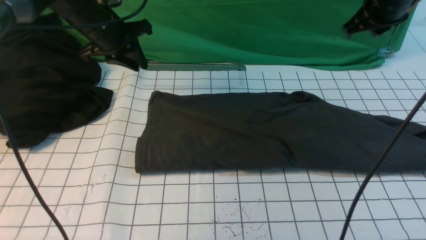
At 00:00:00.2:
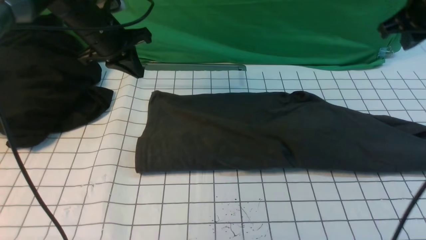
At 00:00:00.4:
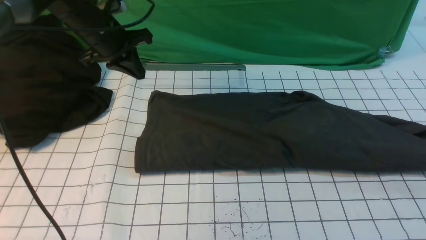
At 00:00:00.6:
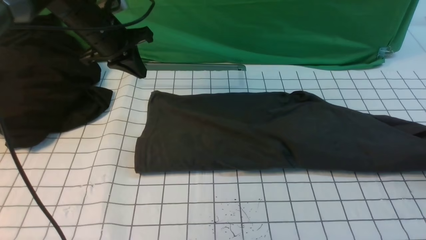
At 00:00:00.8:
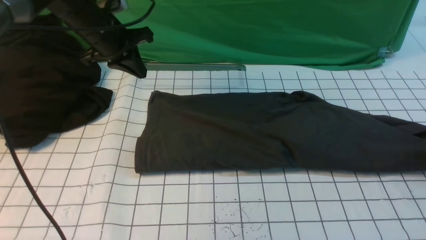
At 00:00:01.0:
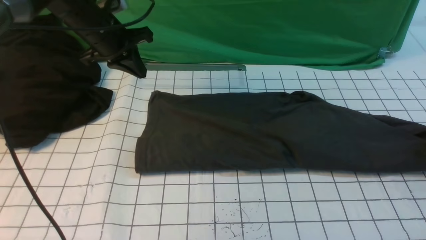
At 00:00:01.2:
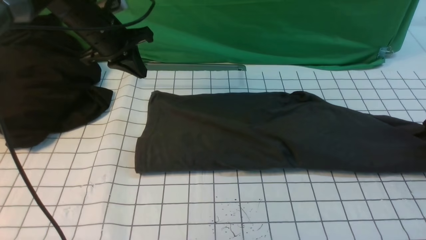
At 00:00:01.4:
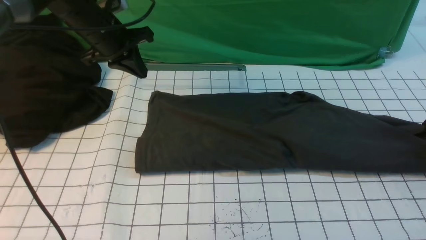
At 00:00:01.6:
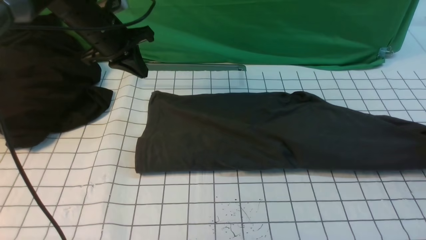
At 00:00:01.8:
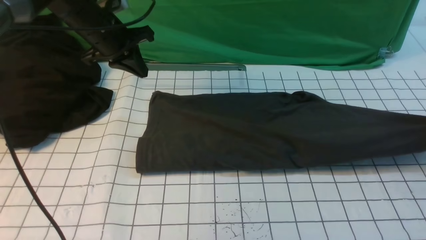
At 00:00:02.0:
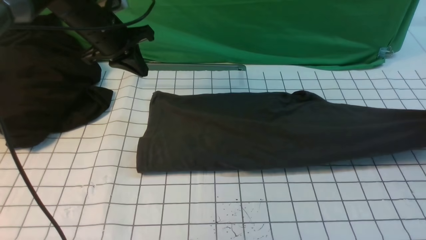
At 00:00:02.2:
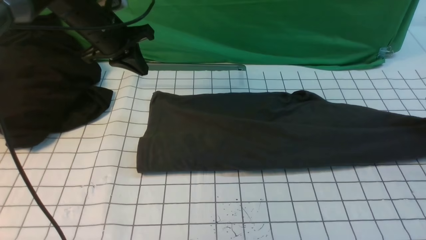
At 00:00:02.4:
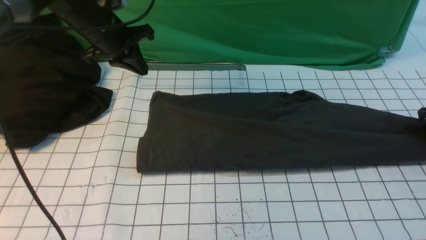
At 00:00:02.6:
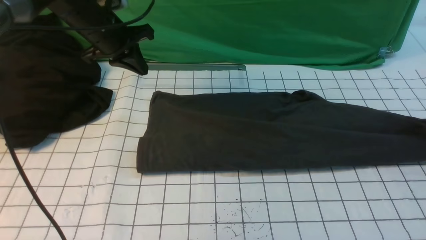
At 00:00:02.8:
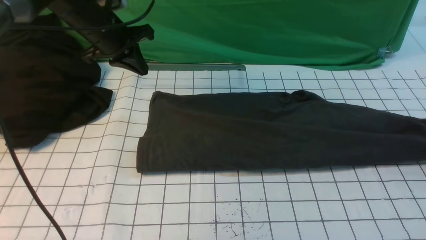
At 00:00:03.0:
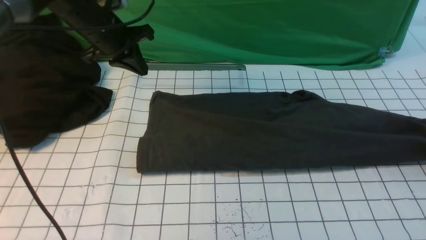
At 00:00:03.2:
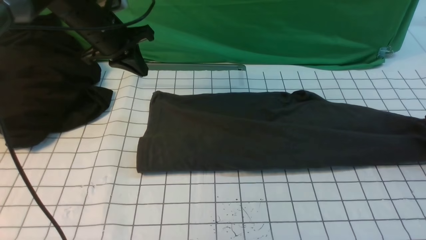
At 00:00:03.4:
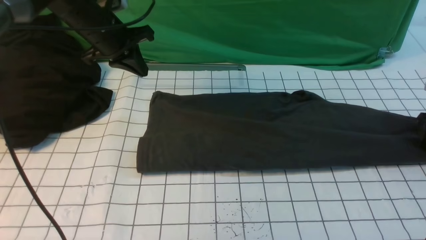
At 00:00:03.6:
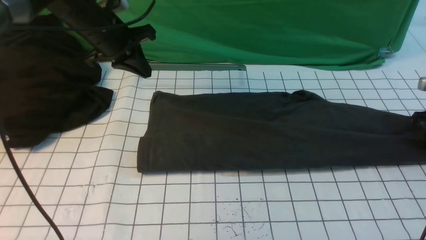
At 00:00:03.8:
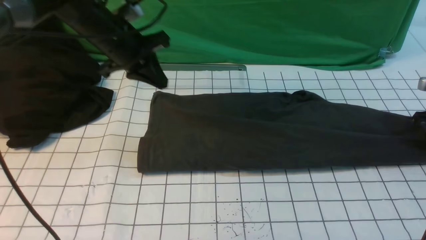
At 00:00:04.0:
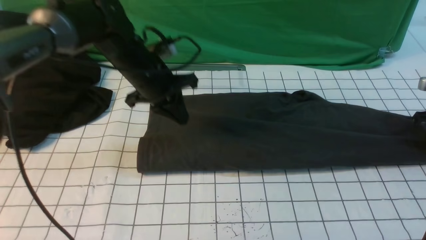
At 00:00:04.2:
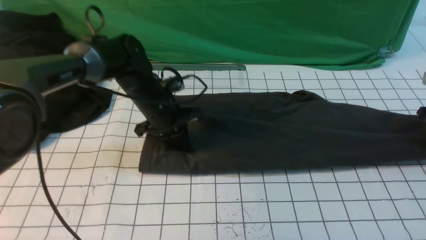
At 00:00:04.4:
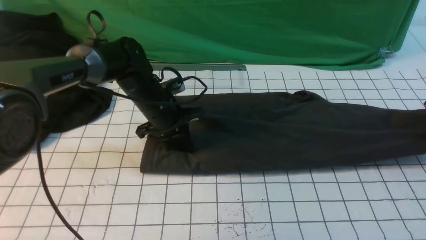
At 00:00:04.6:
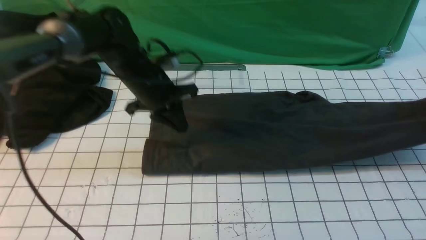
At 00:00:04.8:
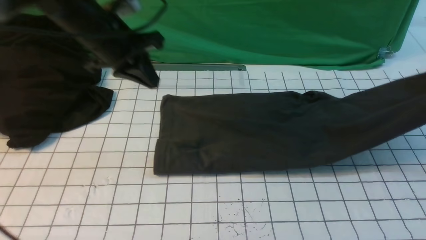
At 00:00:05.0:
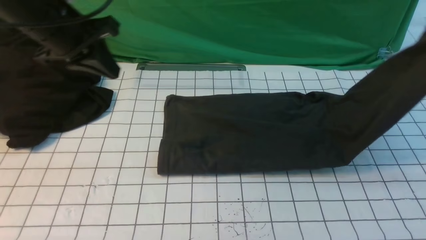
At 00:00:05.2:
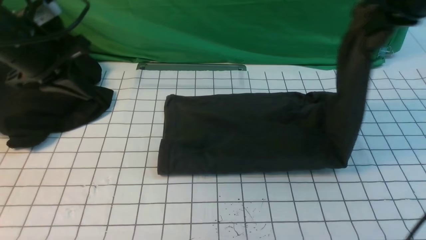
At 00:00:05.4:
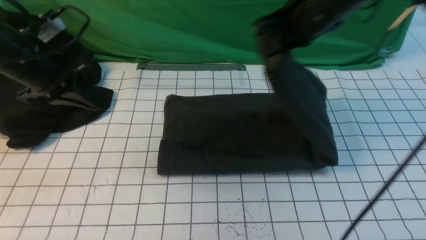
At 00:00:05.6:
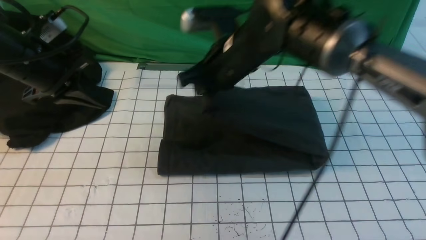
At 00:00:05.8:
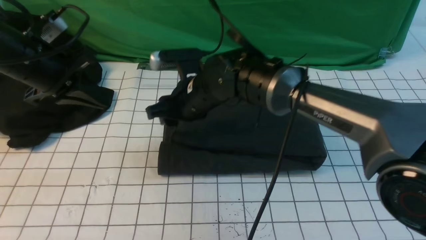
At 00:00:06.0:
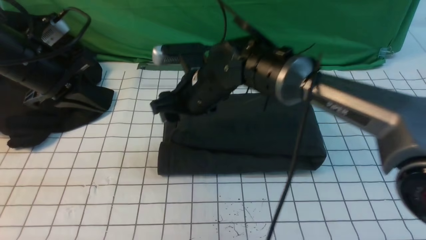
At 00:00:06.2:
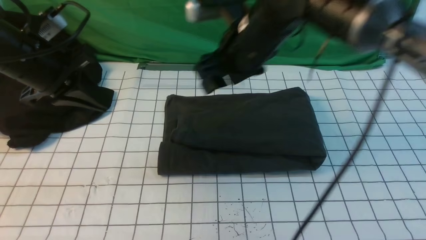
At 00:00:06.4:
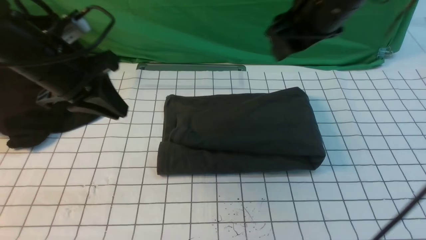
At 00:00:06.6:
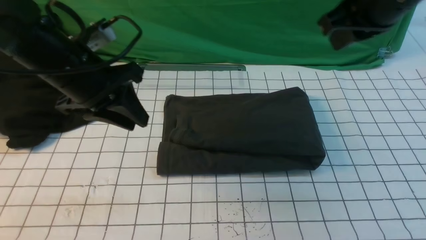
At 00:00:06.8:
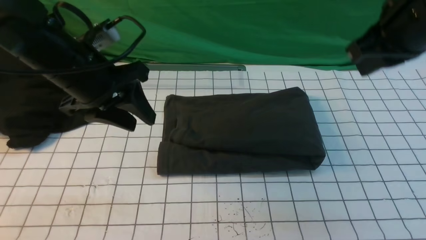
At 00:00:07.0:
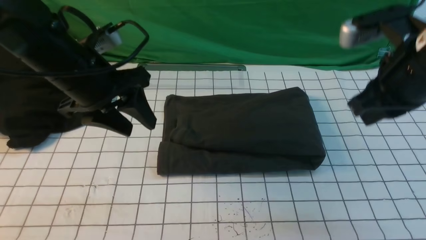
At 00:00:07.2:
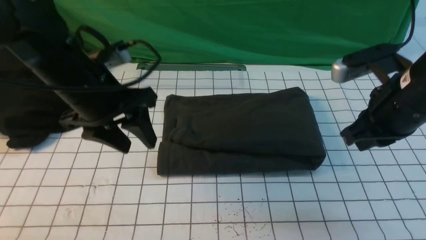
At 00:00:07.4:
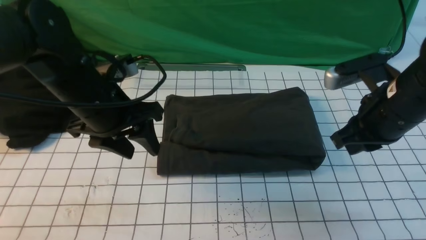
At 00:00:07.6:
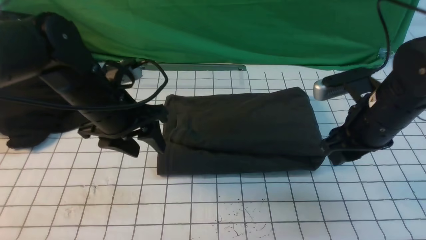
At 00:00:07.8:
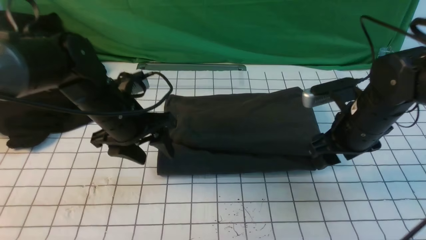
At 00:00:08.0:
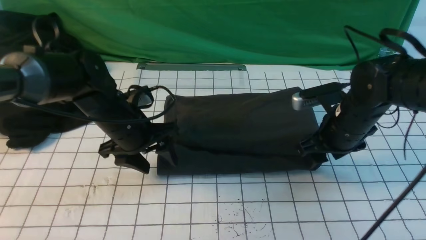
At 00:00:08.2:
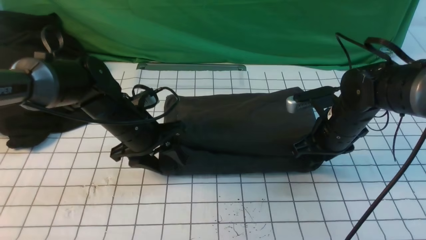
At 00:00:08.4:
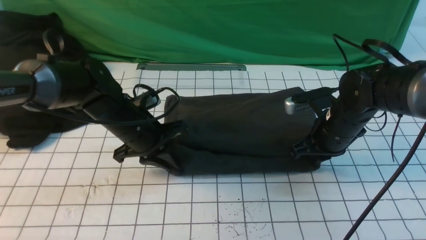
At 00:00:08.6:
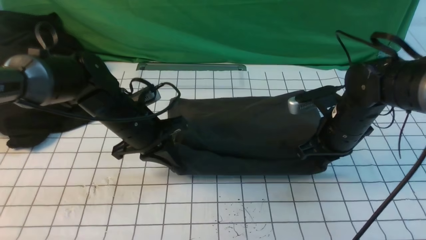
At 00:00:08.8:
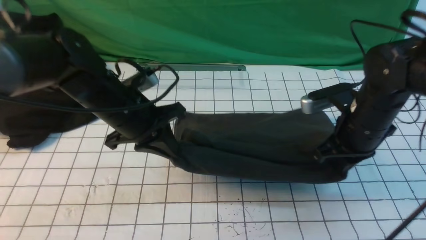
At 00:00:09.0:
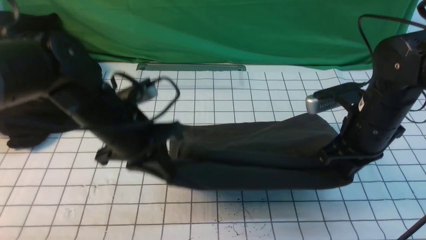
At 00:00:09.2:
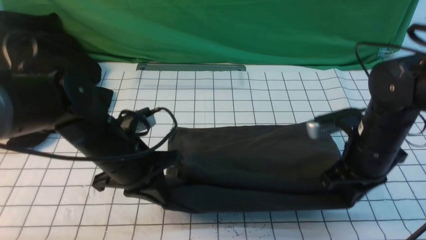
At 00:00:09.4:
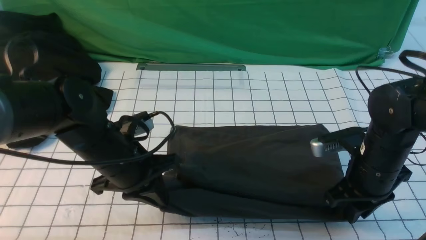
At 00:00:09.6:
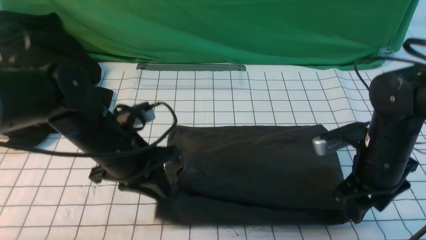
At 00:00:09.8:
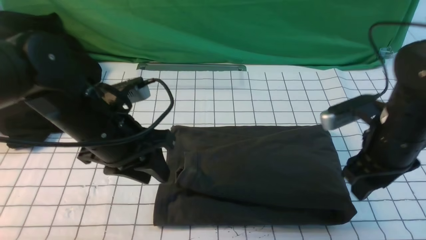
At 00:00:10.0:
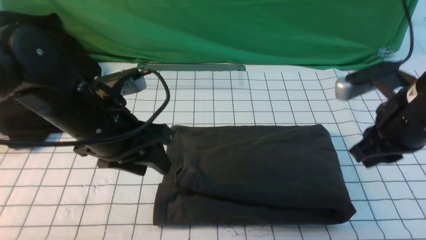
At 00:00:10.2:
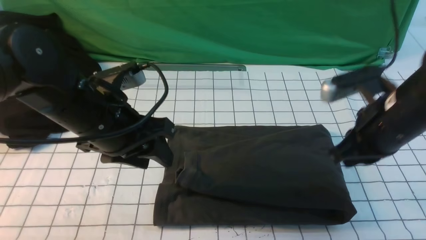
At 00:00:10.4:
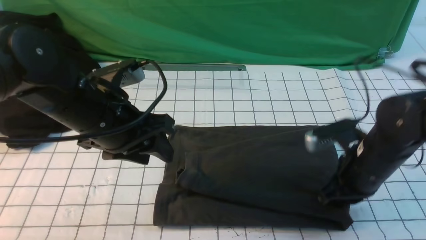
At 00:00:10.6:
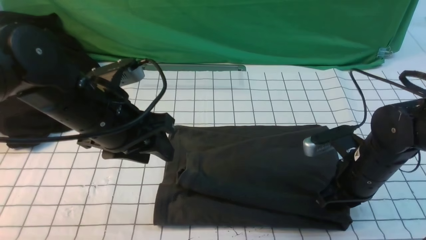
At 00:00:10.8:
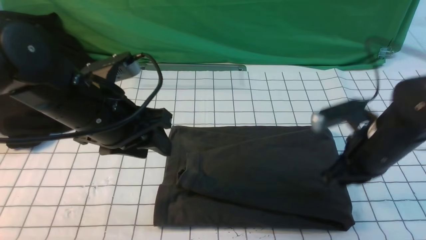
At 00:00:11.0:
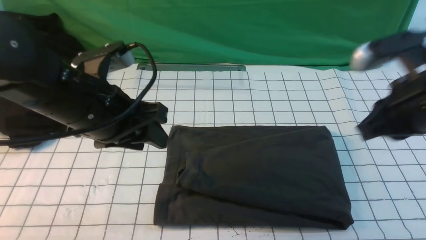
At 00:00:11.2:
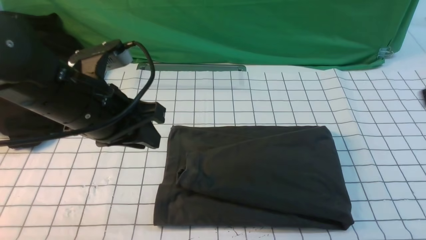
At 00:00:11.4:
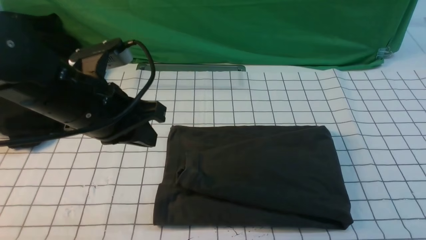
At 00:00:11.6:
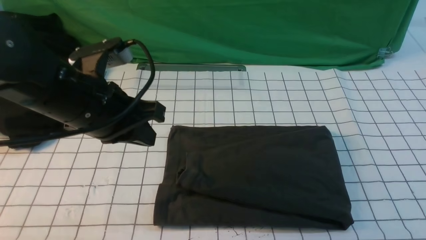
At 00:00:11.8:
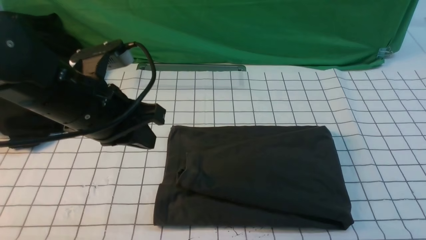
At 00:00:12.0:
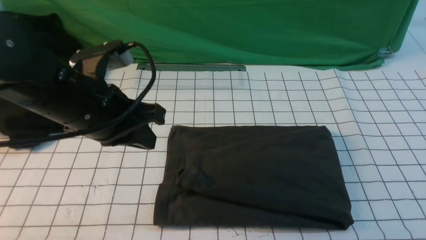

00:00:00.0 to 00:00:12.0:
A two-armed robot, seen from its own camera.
Step, 00:00:00.0 to 00:00:04.4: use the right arm to clamp the right edge of the fabric.
Step, 00:00:04.8 to 00:00:06.0: use the right arm to drag the right edge of the fabric to the left and folds it over the left edge.
00:00:00.0 to 00:00:01.6: The right gripper goes roughly 25 cm to the right and downward, and opens, then closes again.
00:00:01.6 to 00:00:03.0: The right gripper opens.
00:00:03.0 to 00:00:04.4: The right gripper closes its fingers; the left gripper is displaced downward, to the right and backward by approximately 15 cm.
00:00:04.4 to 00:00:06.0: The left gripper shifts some 20 cm to the left, upward and backward. Meanwhile the right gripper travels to the left by some 50 cm, and opens its fingers.
00:00:06.0 to 00:00:07.6: The right gripper is displaced to the right by some 20 cm, and closes, then reopens; the left gripper shifts approximately 10 cm to the right and downward, and opens its fingers.
00:00:07.6 to 00:00:09.0: The left gripper closes; the right gripper closes up.
00:00:09.0 to 00:00:10.4: The right gripper opens, then closes again. Meanwhile the left gripper moves upward, some 5 cm, and opens.
00:00:10.4 to 00:00:12.0: The right gripper travels backward and upward by about 25 cm. The left gripper closes up.

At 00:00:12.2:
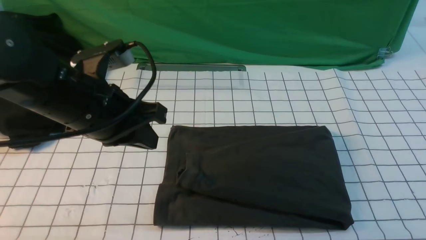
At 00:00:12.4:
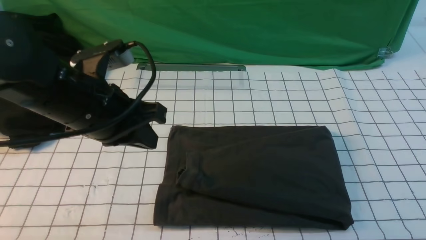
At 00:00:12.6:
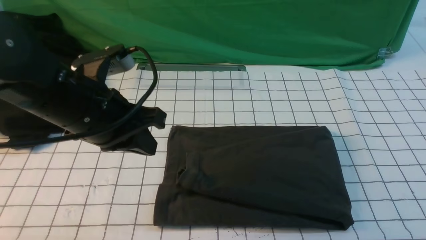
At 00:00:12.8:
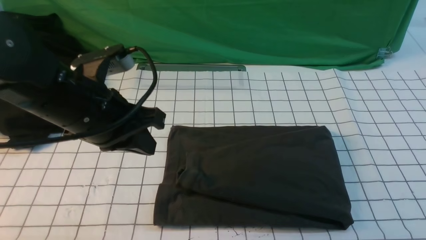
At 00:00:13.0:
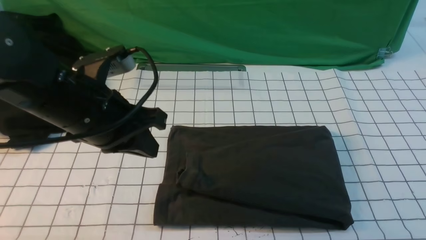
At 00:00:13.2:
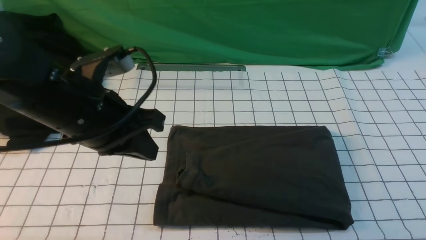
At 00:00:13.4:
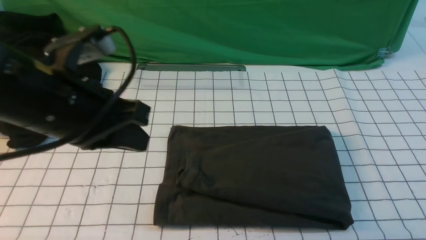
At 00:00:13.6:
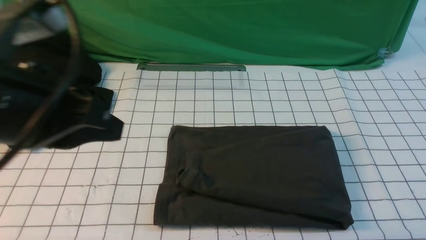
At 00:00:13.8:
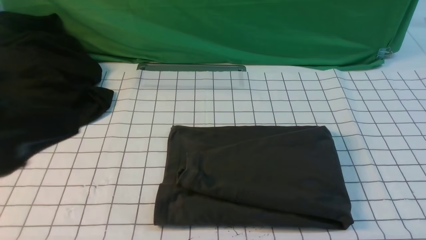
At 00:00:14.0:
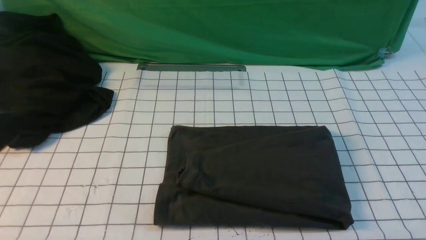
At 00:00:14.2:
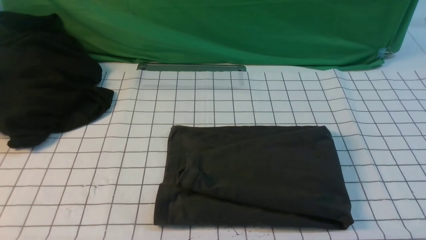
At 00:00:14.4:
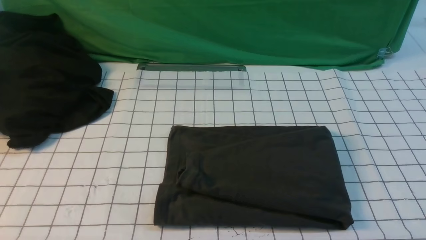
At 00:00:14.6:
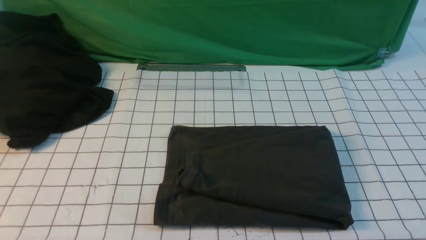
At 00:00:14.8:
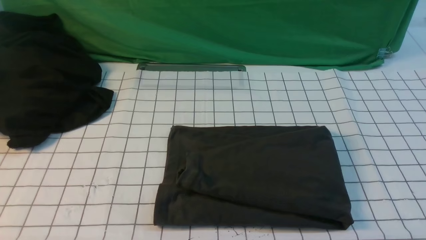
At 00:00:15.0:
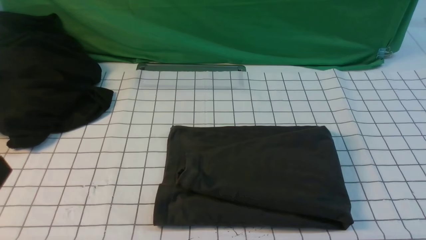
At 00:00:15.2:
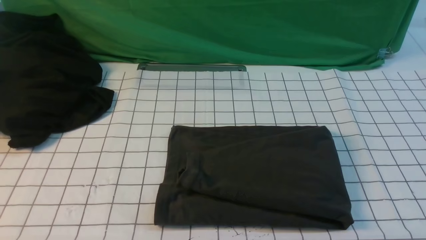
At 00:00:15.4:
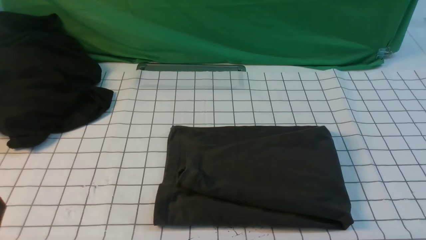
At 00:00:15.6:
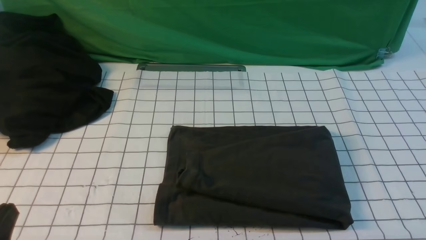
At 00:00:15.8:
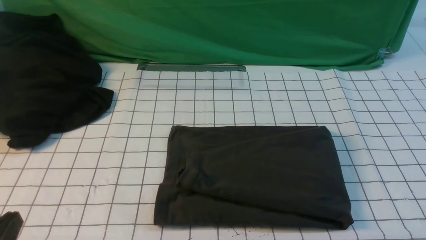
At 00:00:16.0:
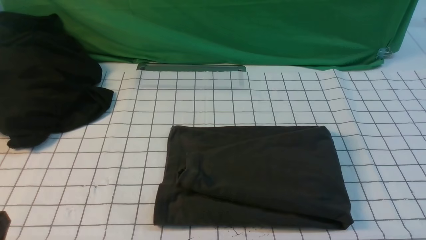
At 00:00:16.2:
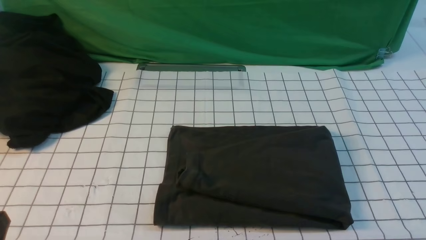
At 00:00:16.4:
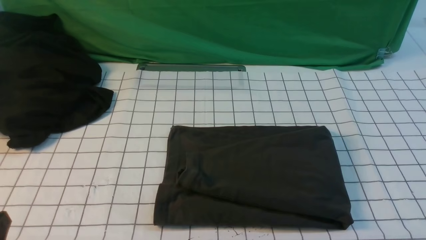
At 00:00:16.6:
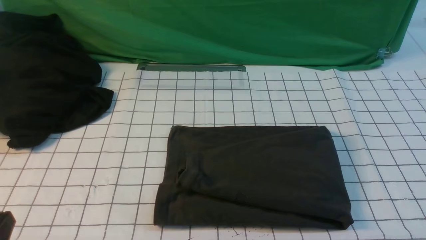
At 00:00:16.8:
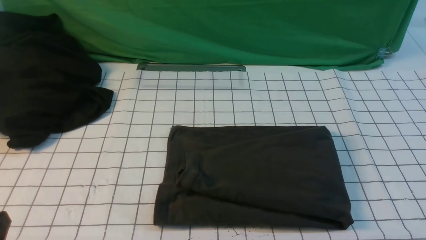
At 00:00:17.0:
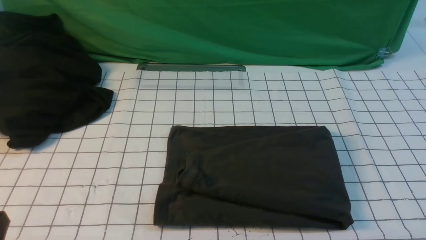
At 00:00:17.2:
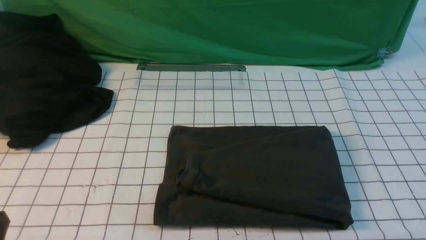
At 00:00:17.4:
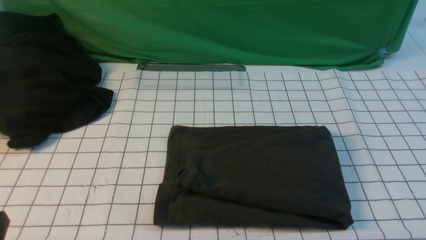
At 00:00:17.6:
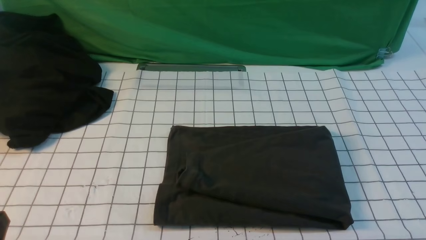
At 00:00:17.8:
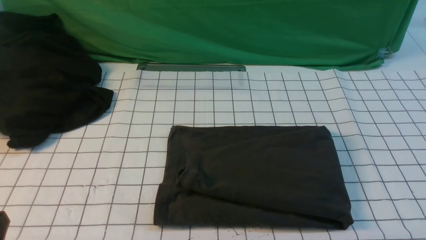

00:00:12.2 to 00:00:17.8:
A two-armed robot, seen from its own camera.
00:00:12.2 to 00:00:13.6: The left gripper is displaced backward and upward by roughly 15 cm; the right gripper shifts roughly 10 cm downward.
00:00:13.6 to 00:00:15.0: The left gripper is displaced backward, downward and to the left by about 15 cm.
00:00:16.4 to 00:00:17.8: The two grippers keep their place.
